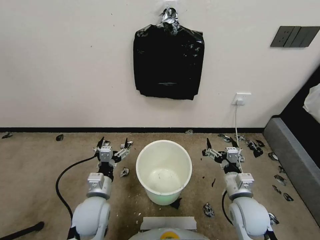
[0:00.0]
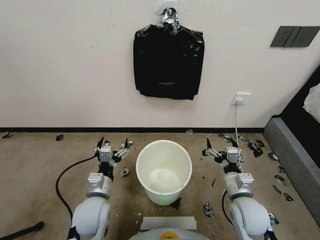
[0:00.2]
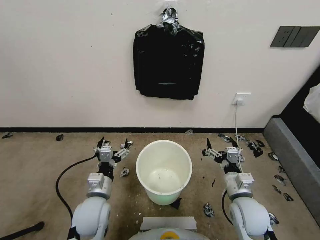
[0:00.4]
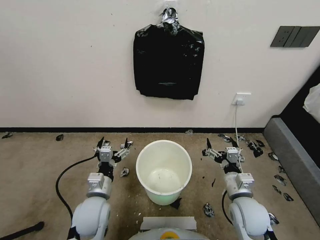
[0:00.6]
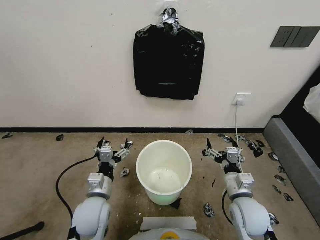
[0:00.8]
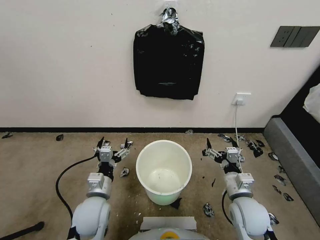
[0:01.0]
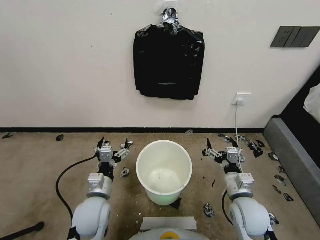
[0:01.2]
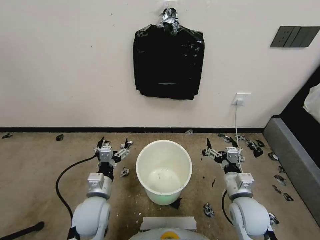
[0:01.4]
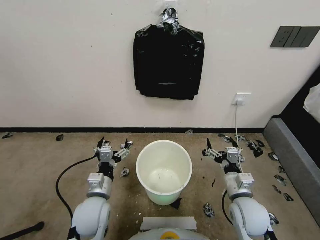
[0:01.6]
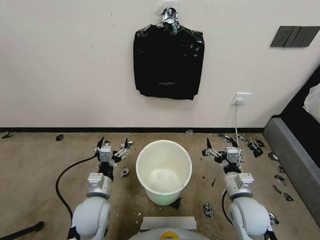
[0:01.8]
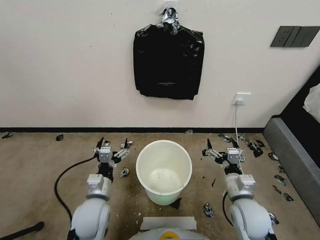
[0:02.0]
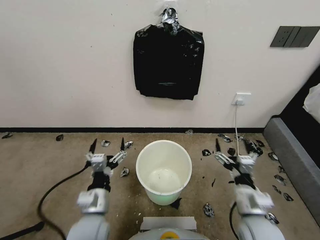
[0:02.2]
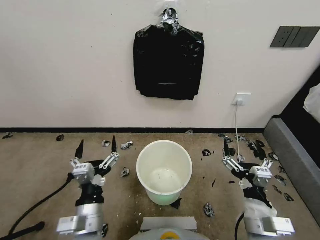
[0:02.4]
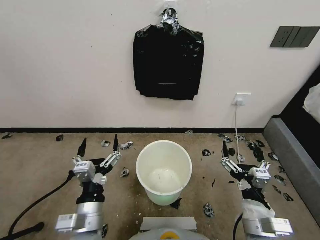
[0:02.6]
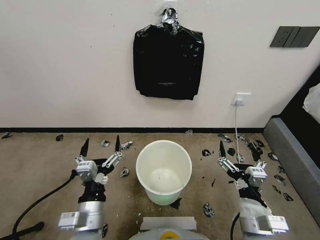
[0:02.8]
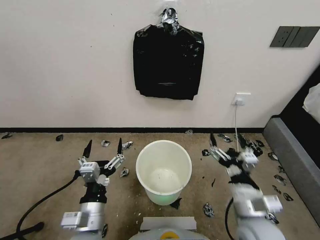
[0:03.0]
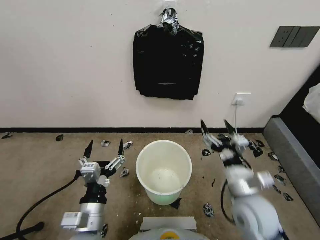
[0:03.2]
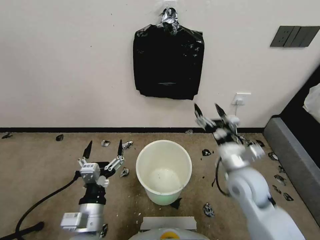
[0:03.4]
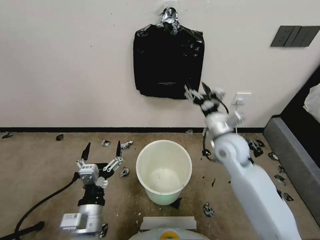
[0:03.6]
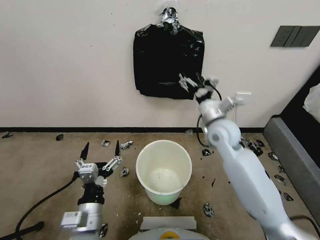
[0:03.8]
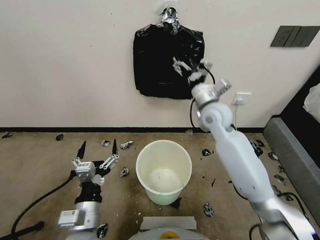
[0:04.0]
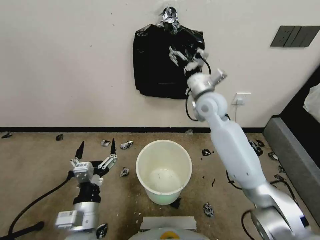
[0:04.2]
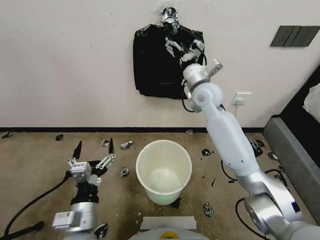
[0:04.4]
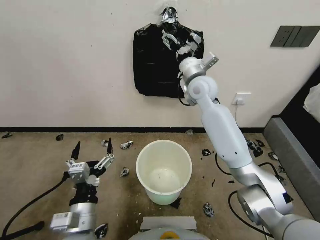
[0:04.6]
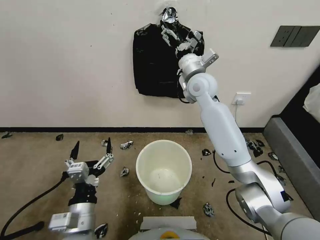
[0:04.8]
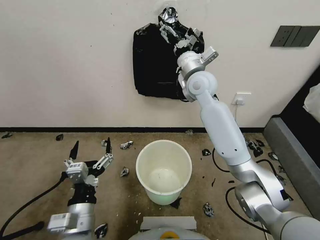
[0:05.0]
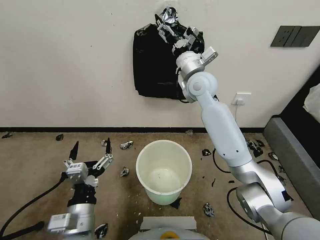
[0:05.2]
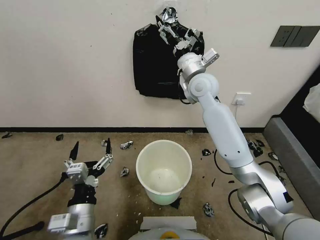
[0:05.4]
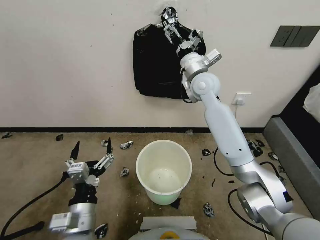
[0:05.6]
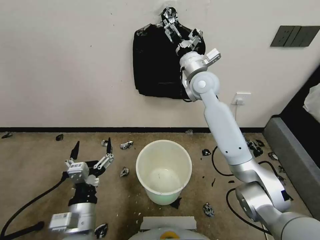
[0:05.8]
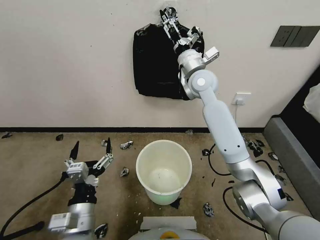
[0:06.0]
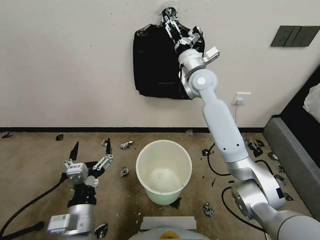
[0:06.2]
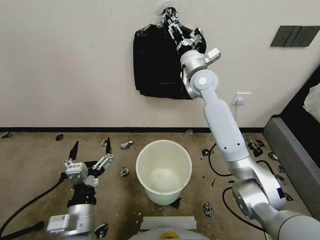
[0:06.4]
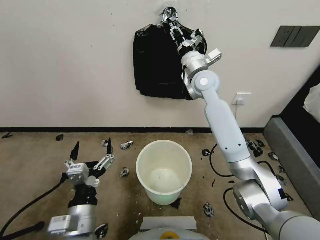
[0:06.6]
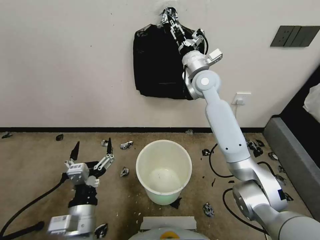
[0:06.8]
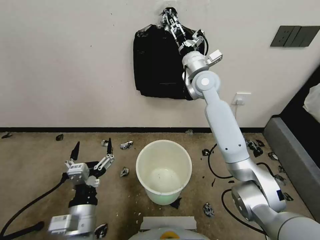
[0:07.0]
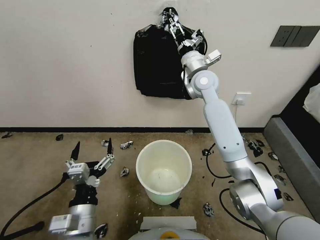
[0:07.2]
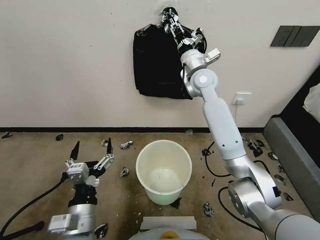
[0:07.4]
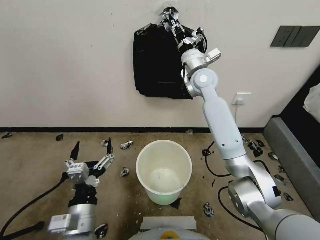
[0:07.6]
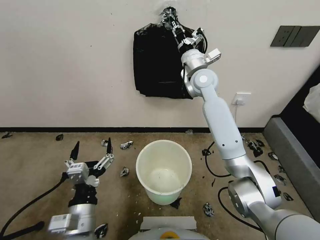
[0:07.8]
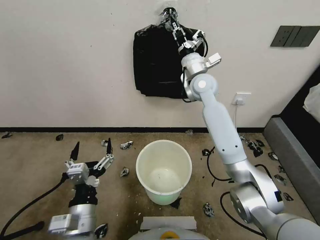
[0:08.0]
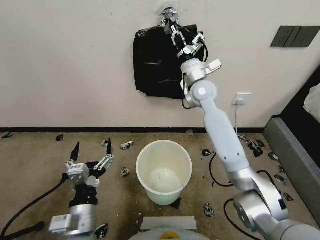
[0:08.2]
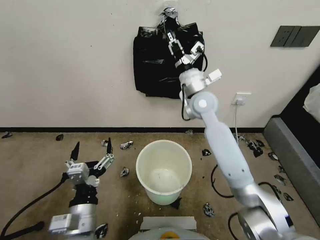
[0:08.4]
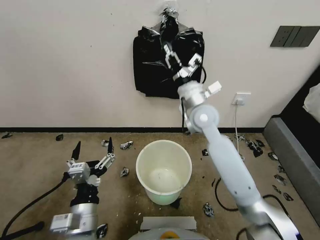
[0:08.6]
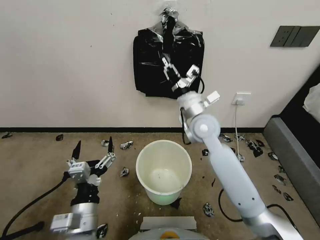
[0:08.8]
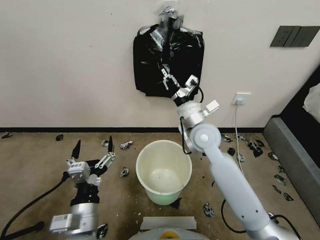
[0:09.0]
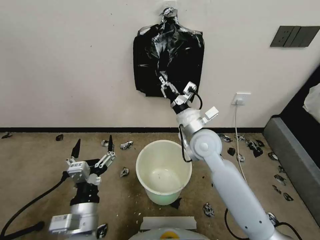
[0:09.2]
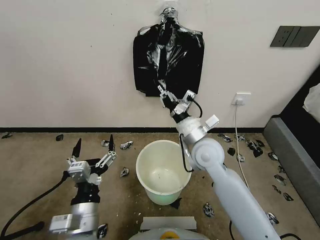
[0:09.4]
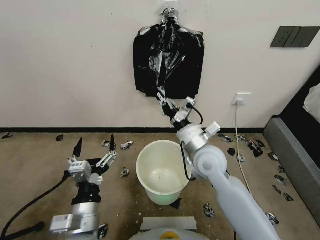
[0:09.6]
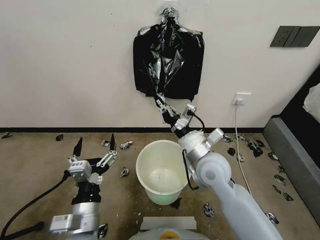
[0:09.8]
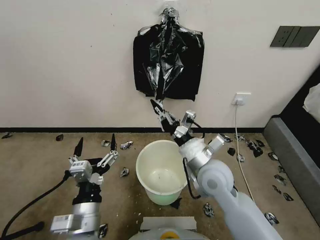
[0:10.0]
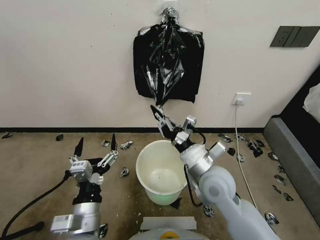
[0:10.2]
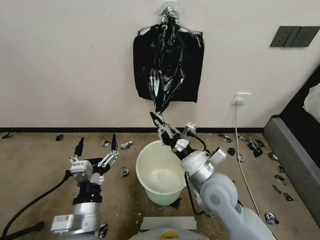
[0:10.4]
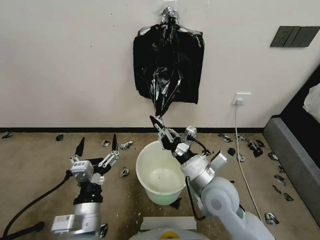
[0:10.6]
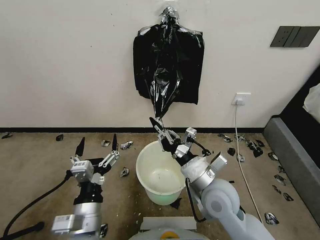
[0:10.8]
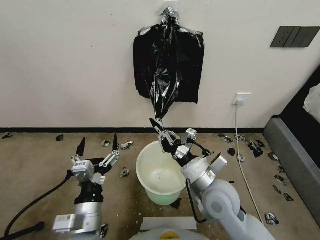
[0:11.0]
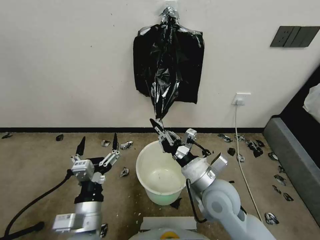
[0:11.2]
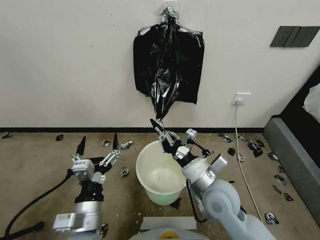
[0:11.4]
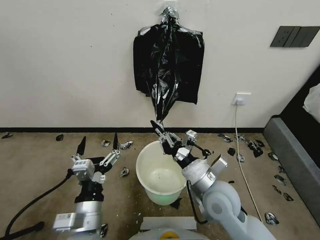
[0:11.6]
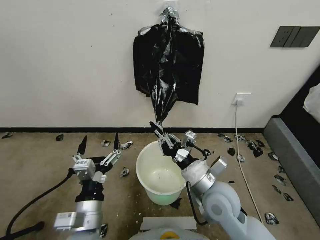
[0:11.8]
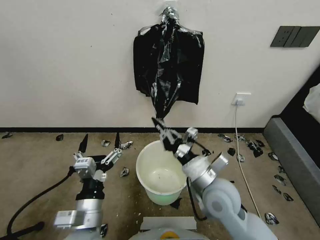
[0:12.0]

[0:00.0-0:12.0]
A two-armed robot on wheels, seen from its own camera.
Task of the whole recording: Place a trash bag onto the trash bin.
0:01.6 to 0:03.0: The two grippers go approximately 10 cm backward and upward.
0:03.0 to 0:04.4: The right gripper shifts about 40 cm forward and upward.
0:06.0 to 0:07.6: The right gripper closes up.
0:07.6 to 0:09.0: The right gripper goes roughly 20 cm backward and downward.
0:09.0 to 0:10.4: The right gripper is displaced backward by roughly 15 cm.
0:10.4 to 0:12.0: The grippers make only small movements.

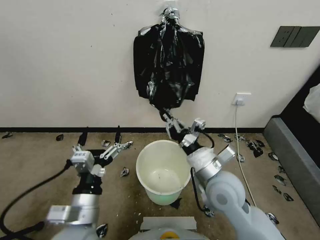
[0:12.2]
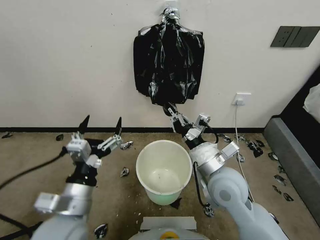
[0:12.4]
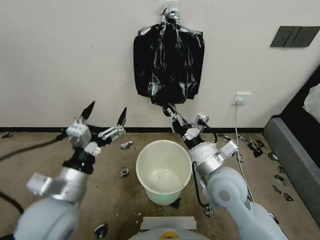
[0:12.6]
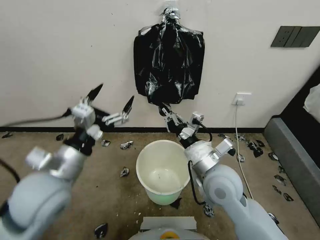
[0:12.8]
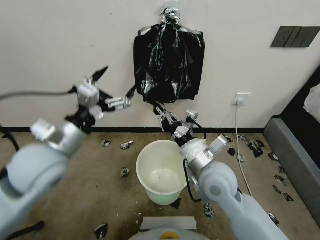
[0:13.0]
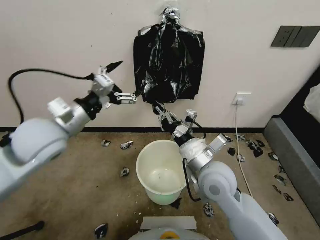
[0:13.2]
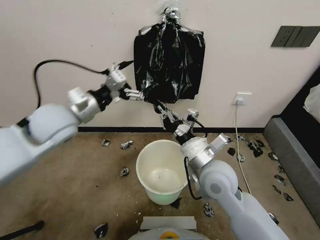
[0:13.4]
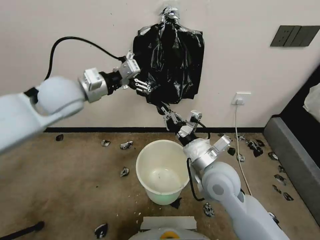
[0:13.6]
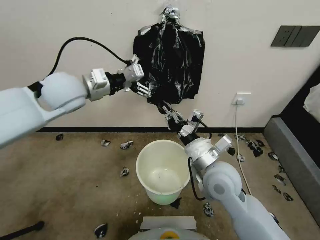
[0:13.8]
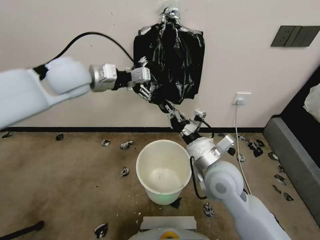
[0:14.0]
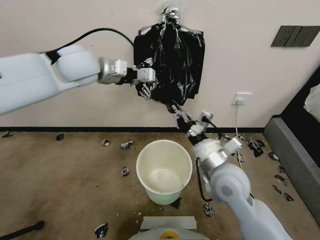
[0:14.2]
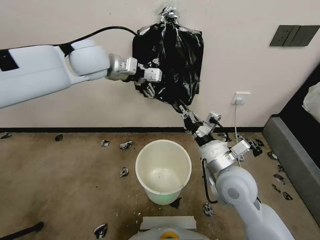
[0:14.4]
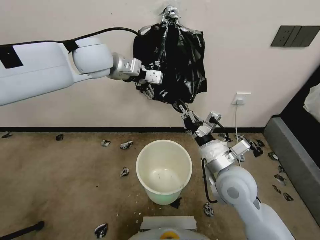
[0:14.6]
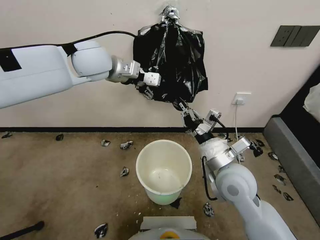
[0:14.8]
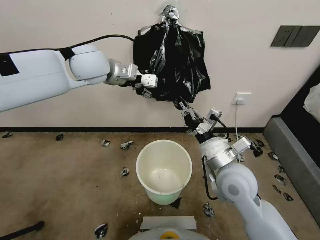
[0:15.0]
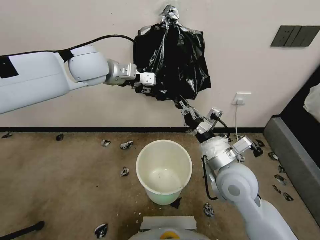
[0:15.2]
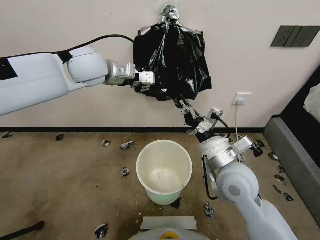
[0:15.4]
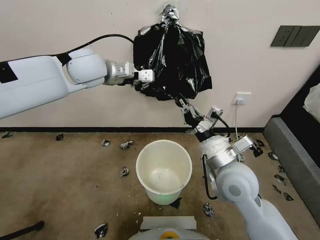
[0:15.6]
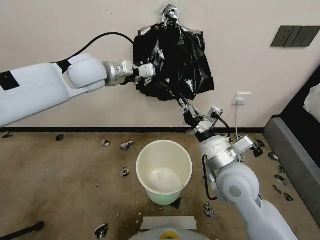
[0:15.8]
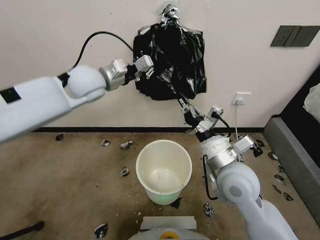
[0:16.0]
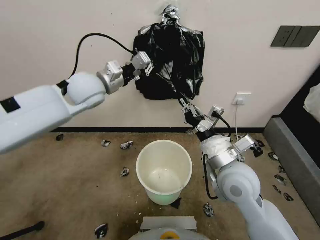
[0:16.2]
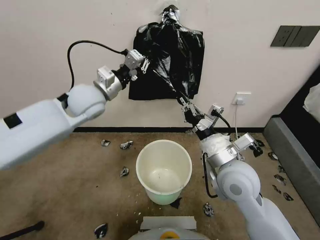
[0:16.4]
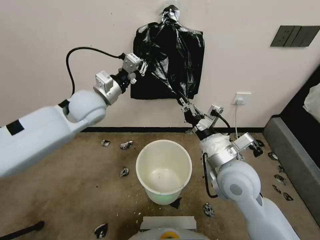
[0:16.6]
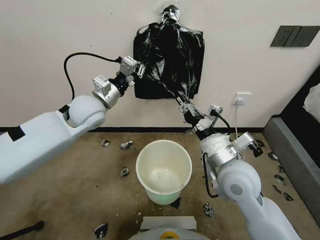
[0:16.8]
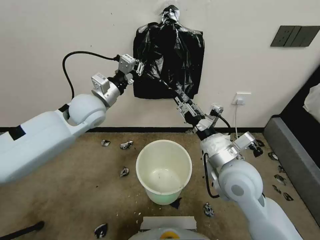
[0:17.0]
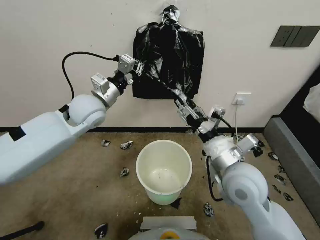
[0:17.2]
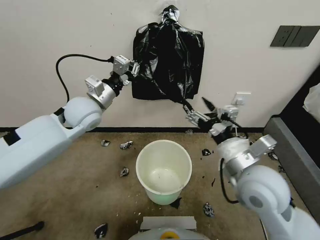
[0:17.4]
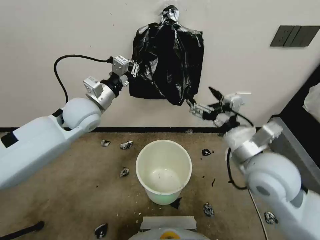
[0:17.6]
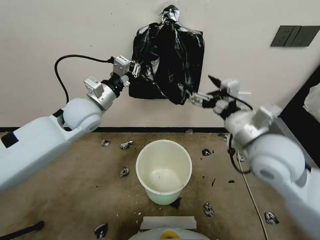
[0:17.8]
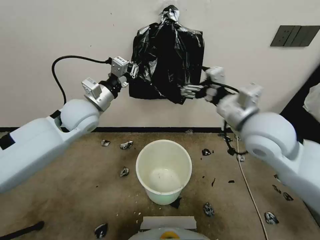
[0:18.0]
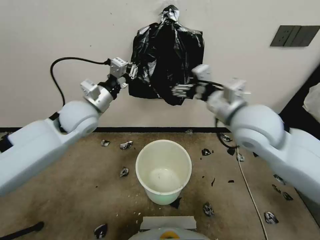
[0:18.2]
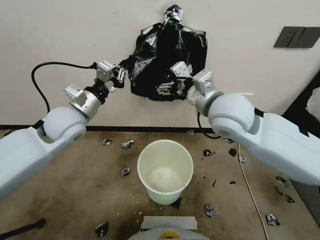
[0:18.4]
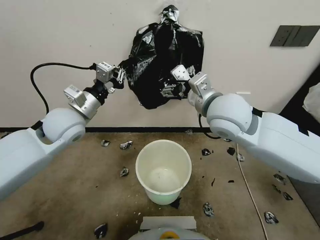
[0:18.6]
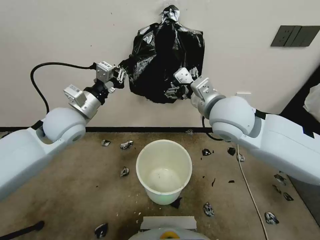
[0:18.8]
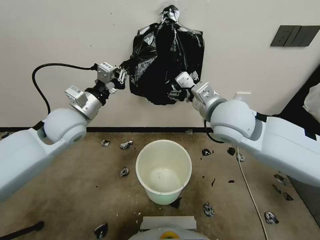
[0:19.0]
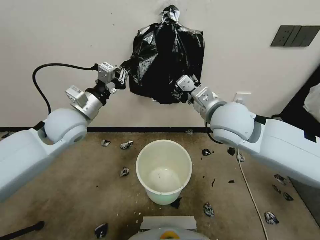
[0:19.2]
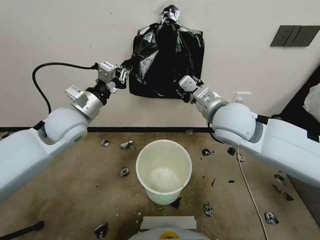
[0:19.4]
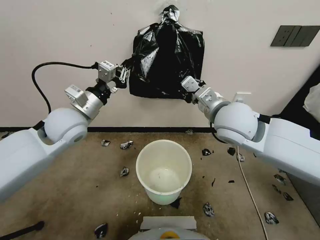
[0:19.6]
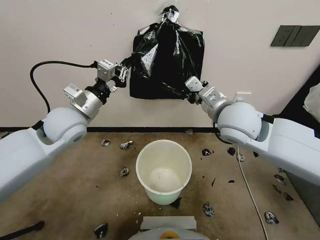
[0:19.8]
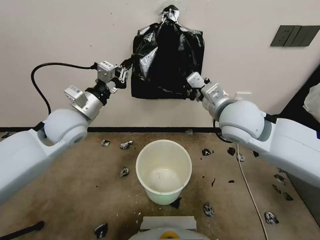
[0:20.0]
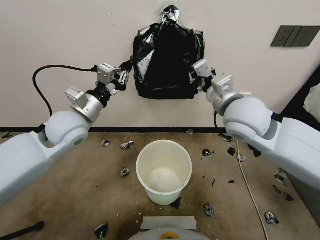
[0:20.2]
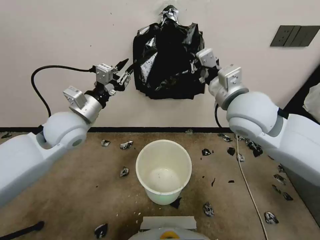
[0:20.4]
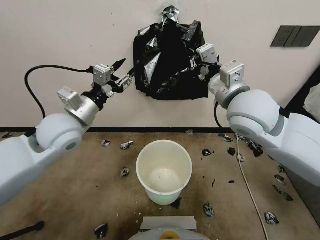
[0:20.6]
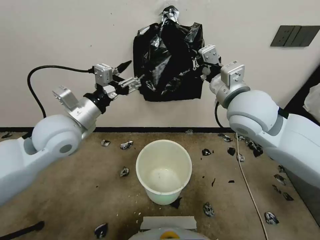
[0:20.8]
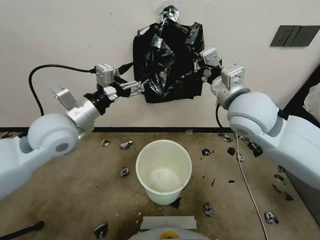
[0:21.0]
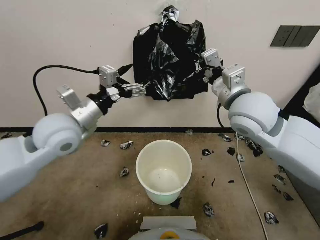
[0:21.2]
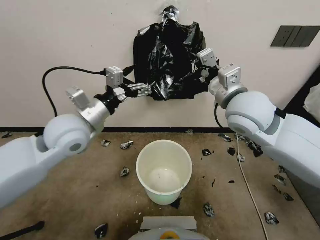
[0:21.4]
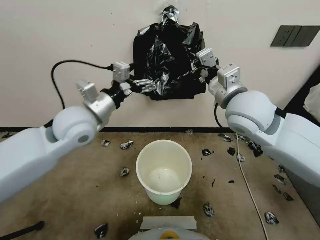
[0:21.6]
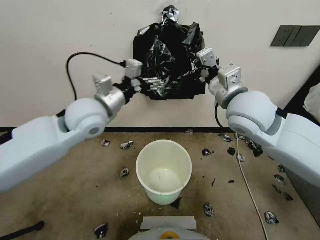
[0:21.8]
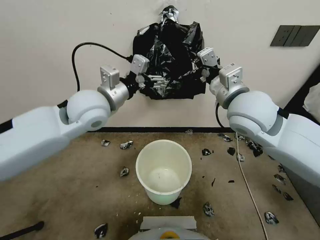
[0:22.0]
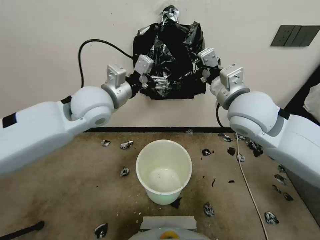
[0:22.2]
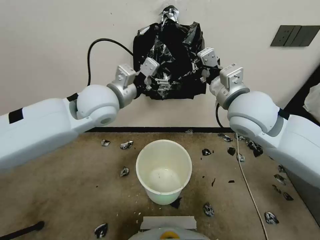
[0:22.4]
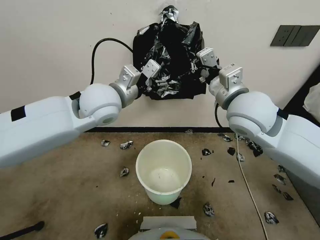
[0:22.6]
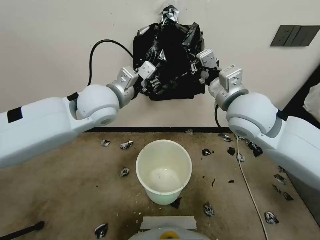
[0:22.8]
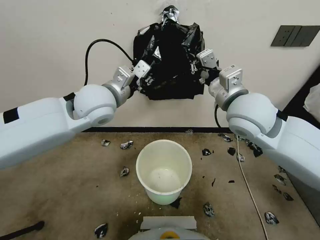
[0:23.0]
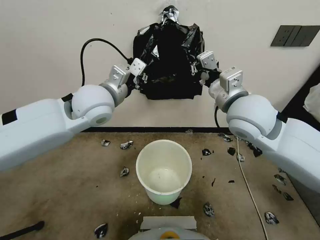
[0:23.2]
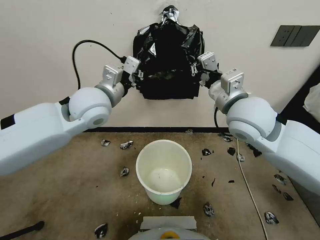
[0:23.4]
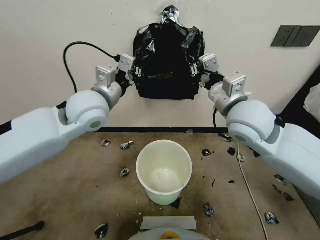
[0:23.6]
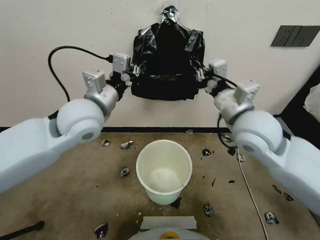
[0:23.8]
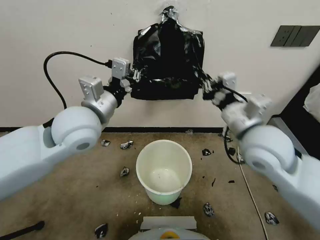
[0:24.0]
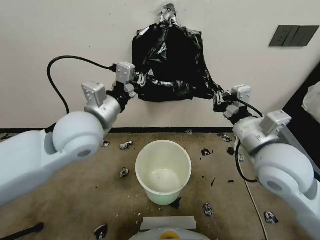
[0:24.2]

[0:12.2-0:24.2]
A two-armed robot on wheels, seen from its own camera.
Task of the whole recording: Place a trash bag onto the trash bin.
0:12.2 to 0:13.8: The left gripper goes some 35 cm forward and upward.
0:13.8 to 0:15.2: The left gripper shifts some 10 cm forward and to the right, and closes.
0:15.2 to 0:16.6: The left gripper is displaced downward and backward by approximately 10 cm, and closes.
0:16.6 to 0:18.2: The right gripper shifts approximately 15 cm upward and forward, and opens its fingers.
0:18.2 to 0:19.8: The right gripper closes its fingers.
0:19.8 to 0:21.2: The left gripper opens its fingers.
0:21.2 to 0:22.6: The left gripper is displaced to the right and forward by some 10 cm.
0:22.6 to 0:24.2: The left gripper travels backward by roughly 10 cm, and closes its fingers, while the right gripper heads backward and downward, covering approximately 10 cm.
